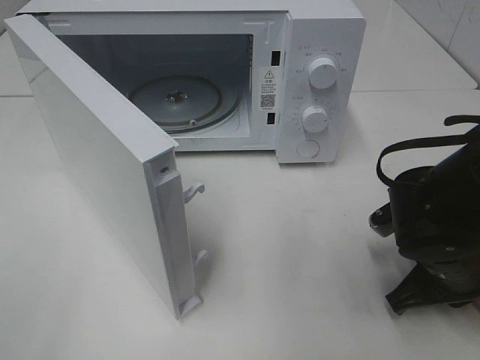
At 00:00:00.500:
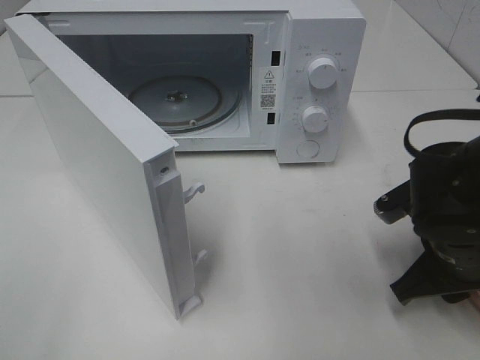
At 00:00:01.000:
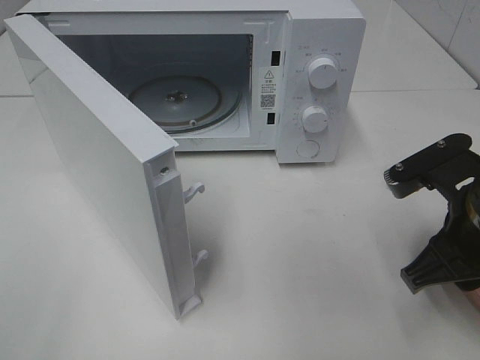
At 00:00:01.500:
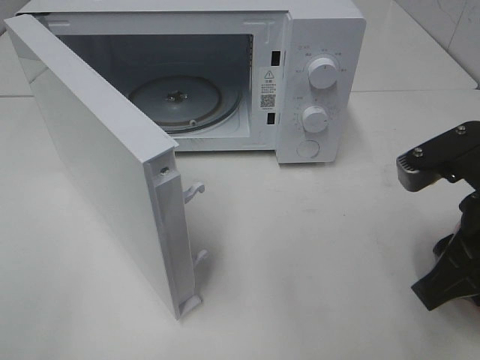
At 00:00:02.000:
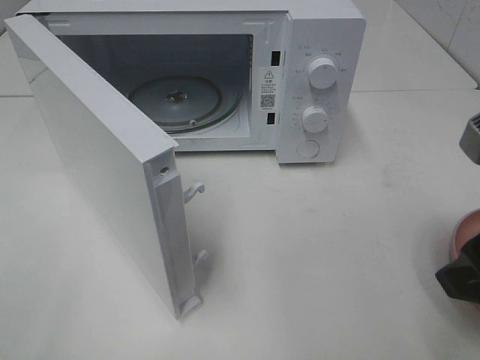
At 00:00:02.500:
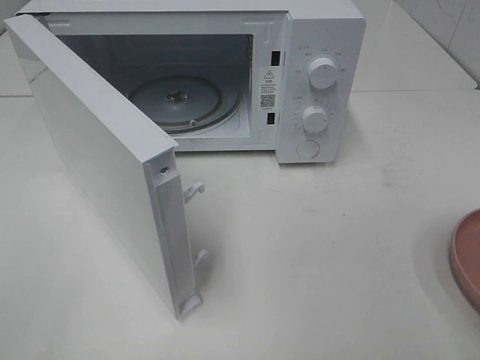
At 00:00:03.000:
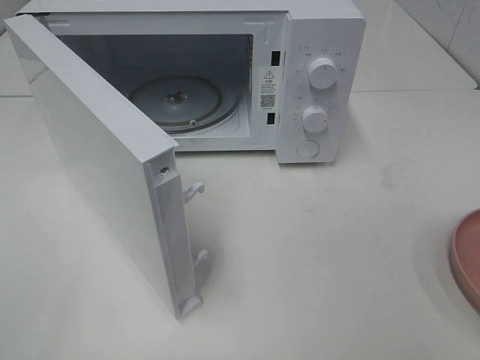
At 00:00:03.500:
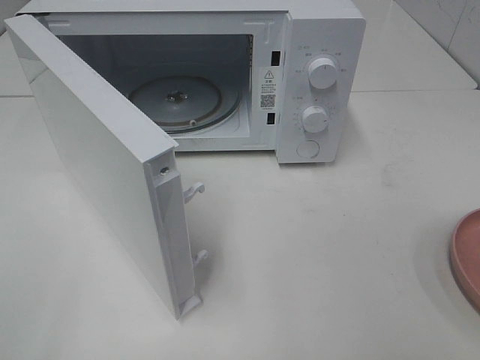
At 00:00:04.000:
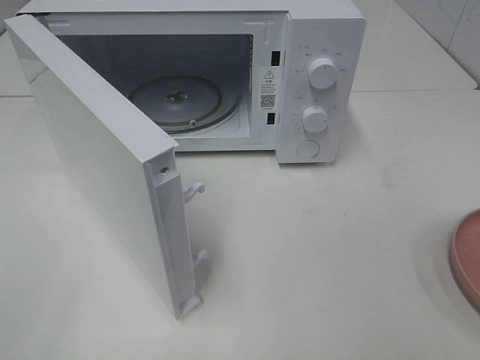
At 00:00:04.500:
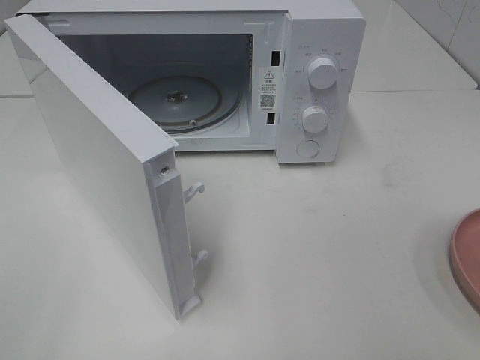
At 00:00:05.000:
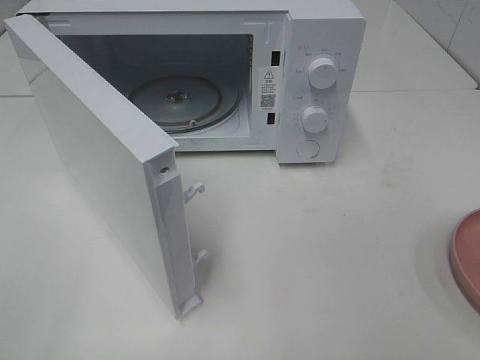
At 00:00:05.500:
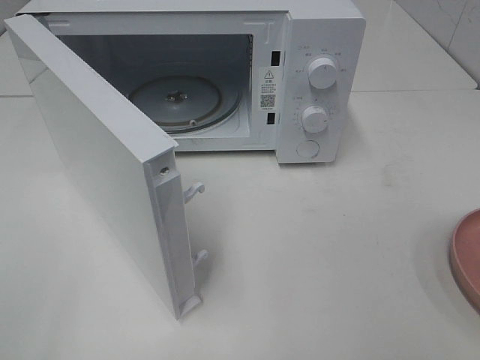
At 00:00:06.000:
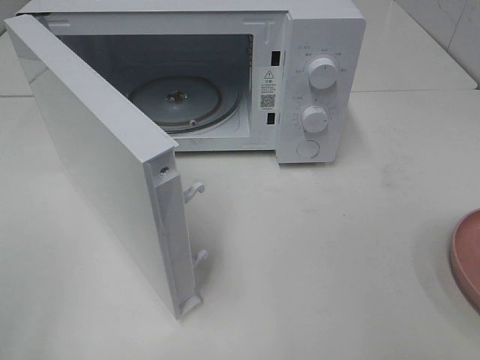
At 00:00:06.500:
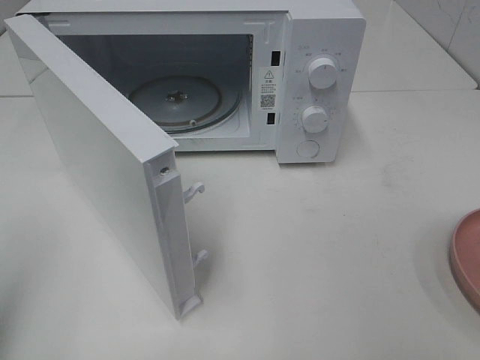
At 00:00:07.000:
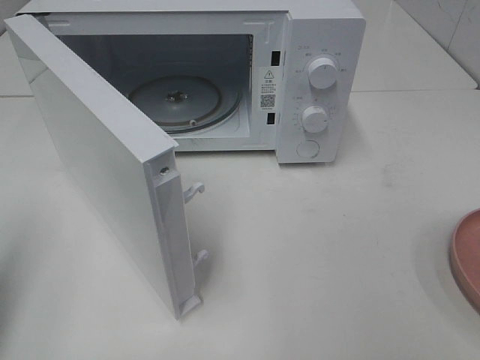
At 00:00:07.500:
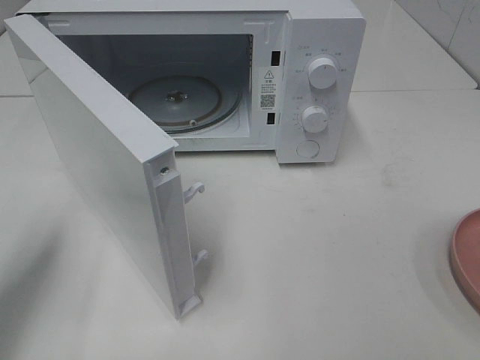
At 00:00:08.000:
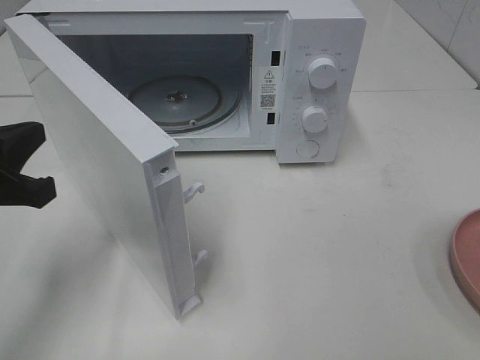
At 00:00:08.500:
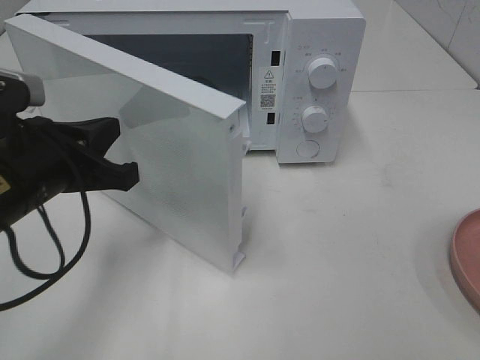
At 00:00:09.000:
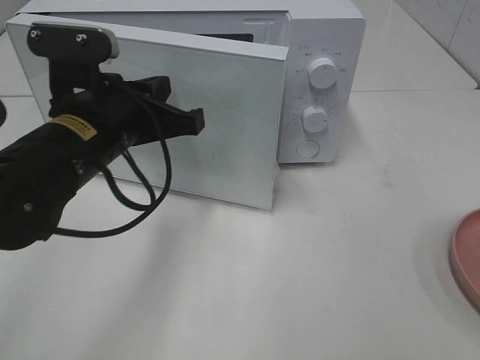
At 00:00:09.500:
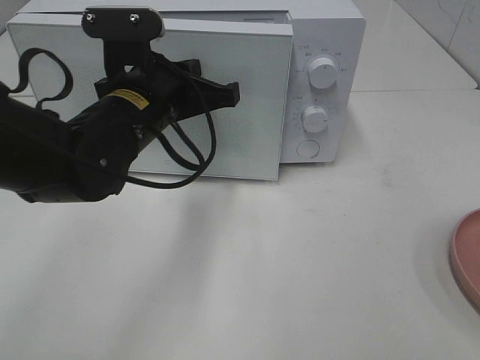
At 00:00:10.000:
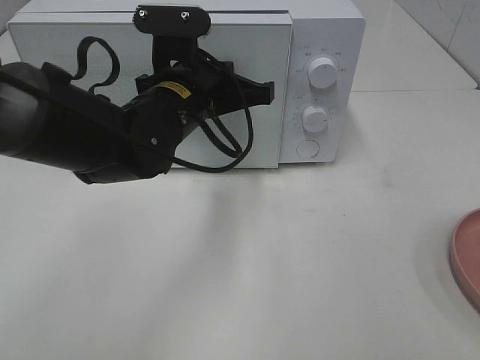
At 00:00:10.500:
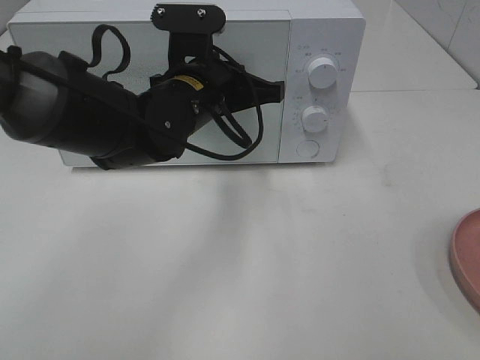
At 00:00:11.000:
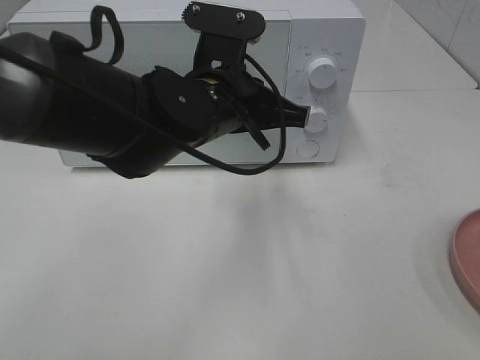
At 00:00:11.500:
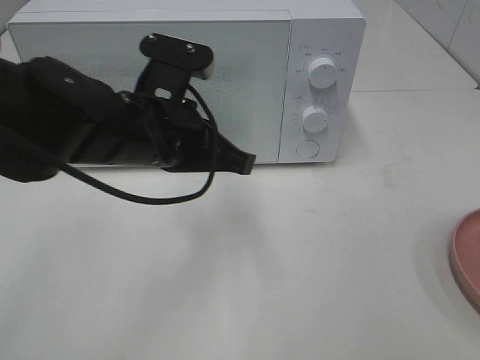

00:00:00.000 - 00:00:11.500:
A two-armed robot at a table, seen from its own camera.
Task of the whole recording: Heat the burger.
Step, 00:00:00.500 - 00:00:10.500: Left hand: close the microwave door.
00:00:00.000 - 00:00:02.000: The right gripper moves upward and backward, about 20 cm, and opens its fingers.
00:00:02.000 - 00:00:04.000: The right gripper is displaced backward and to the right by about 15 cm.
00:00:06.000 - 00:00:07.500: The left gripper is displaced forward and downward by roughly 15 cm, and closes up.
00:00:07.500 - 00:00:09.500: The left gripper goes some 25 cm to the right and forward.

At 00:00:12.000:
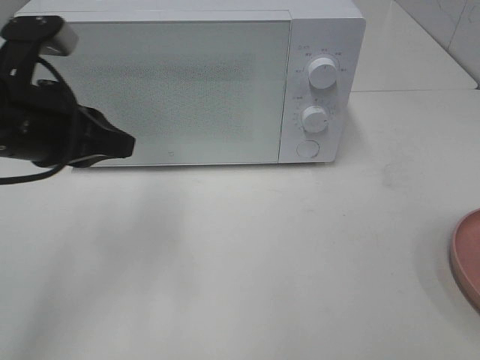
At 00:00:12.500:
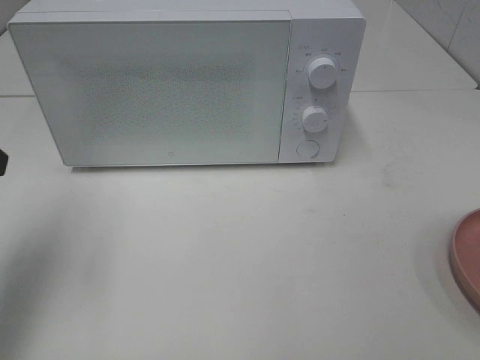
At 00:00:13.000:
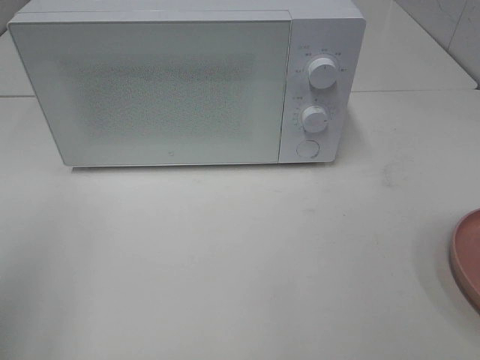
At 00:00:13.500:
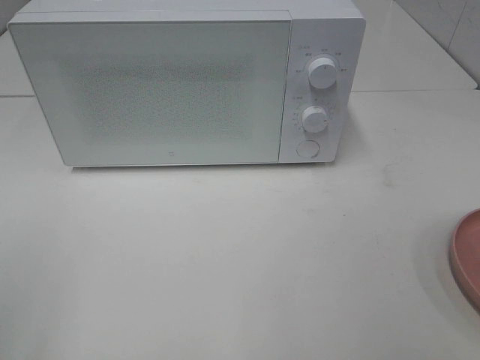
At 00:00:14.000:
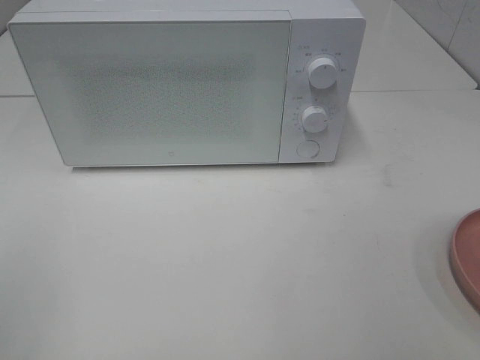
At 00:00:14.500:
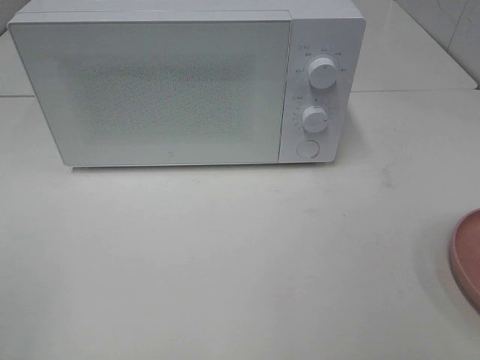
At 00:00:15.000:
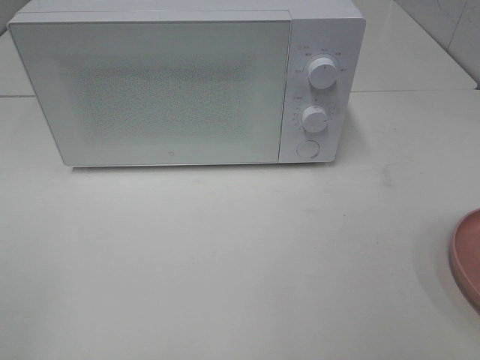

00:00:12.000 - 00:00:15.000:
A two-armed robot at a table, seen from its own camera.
Task of the whole recording: Heat the burger.
00:00:12.000 - 00:00:13.500: The left gripper shifts approximately 25 cm backward and to the left, and opens its fingers.

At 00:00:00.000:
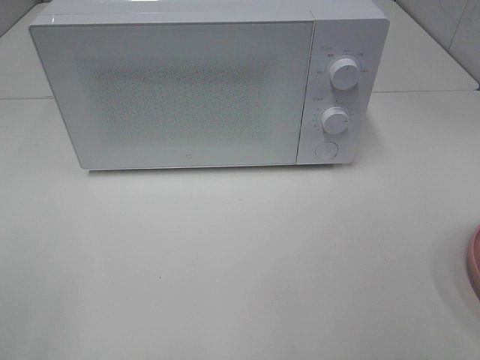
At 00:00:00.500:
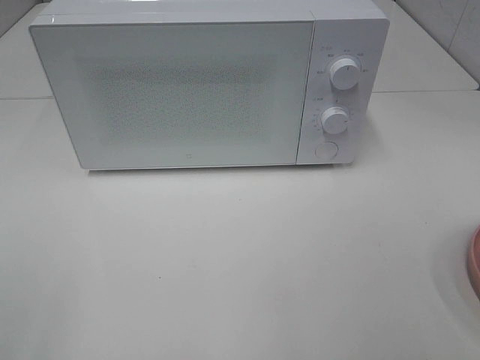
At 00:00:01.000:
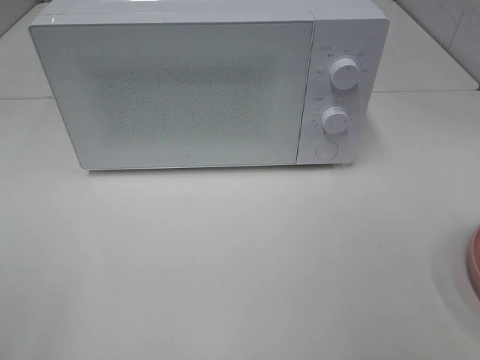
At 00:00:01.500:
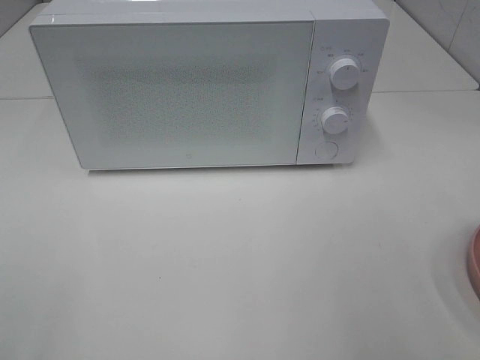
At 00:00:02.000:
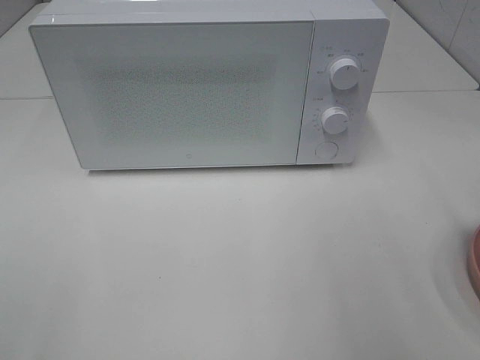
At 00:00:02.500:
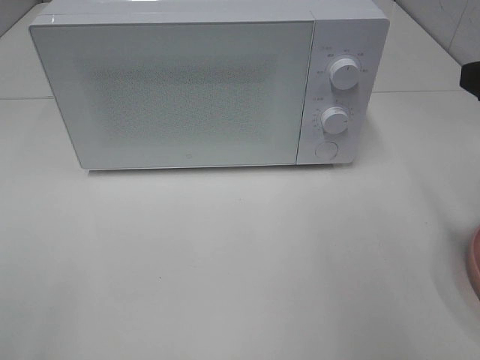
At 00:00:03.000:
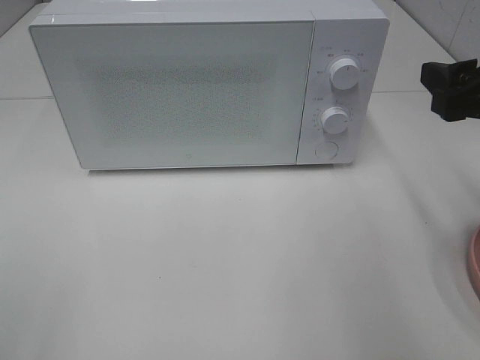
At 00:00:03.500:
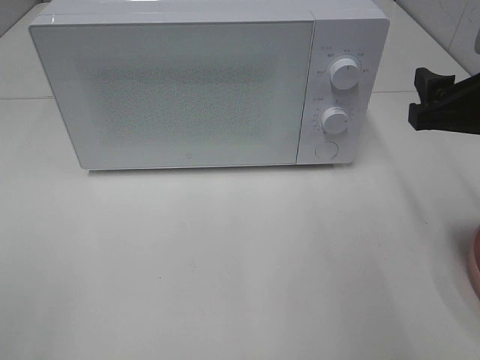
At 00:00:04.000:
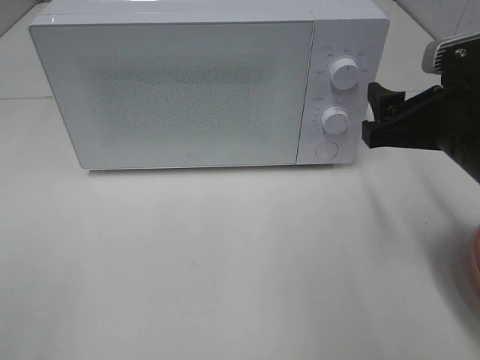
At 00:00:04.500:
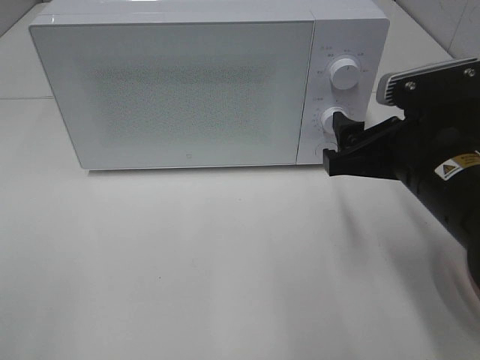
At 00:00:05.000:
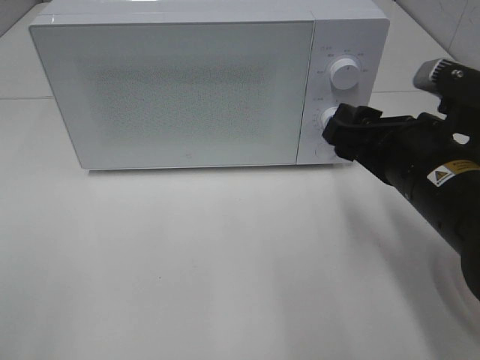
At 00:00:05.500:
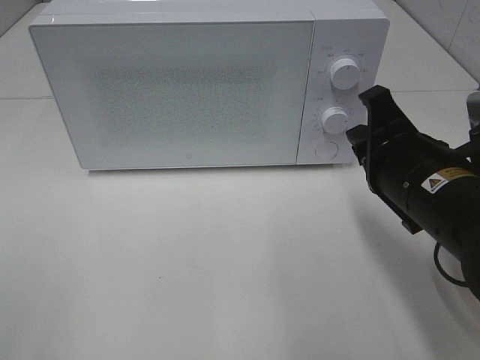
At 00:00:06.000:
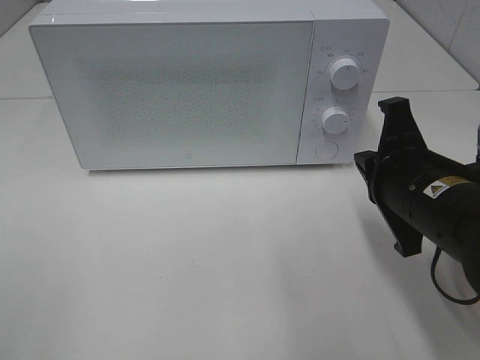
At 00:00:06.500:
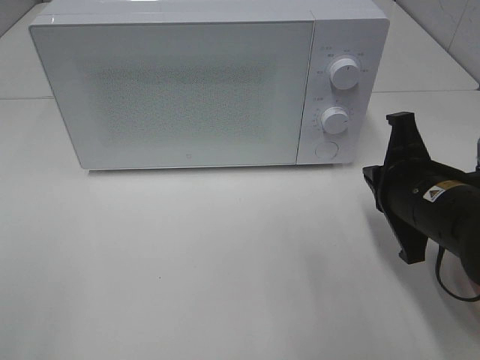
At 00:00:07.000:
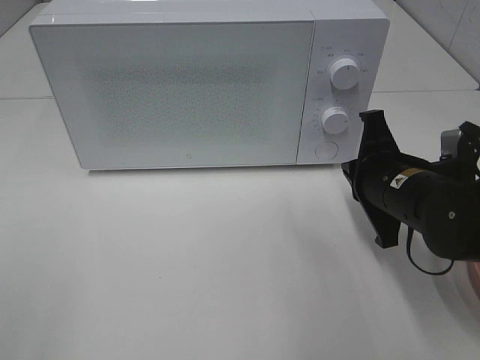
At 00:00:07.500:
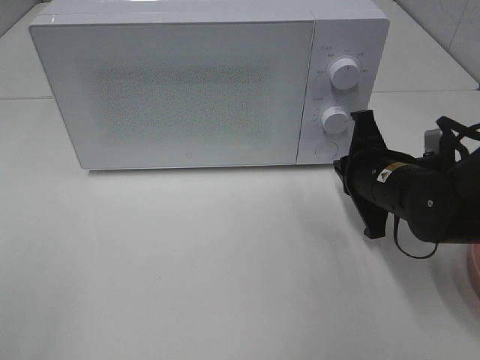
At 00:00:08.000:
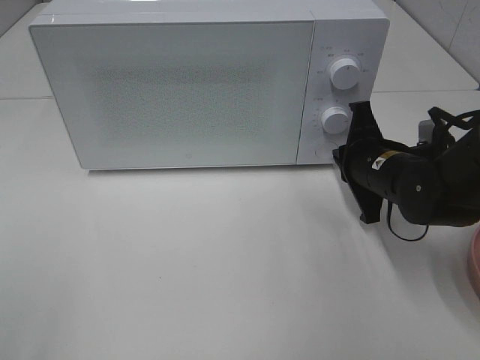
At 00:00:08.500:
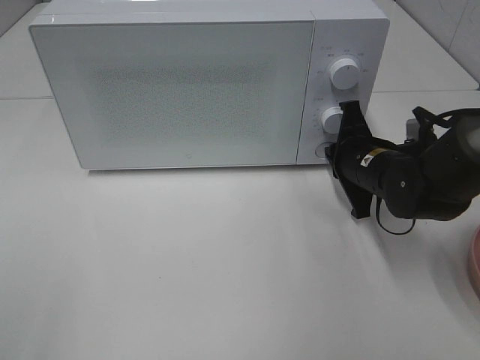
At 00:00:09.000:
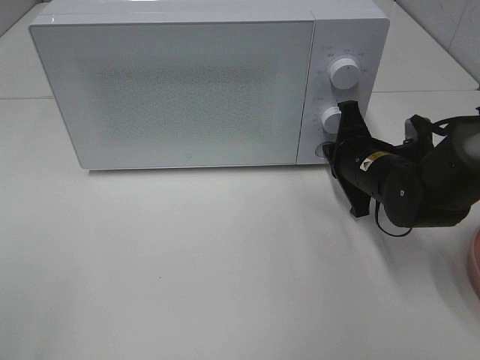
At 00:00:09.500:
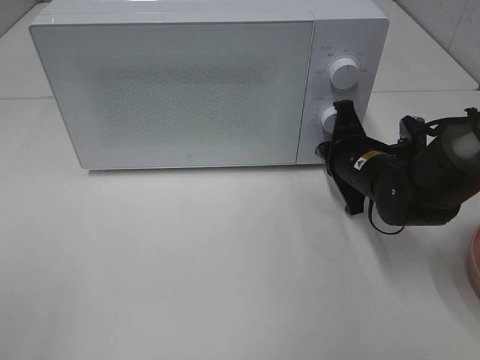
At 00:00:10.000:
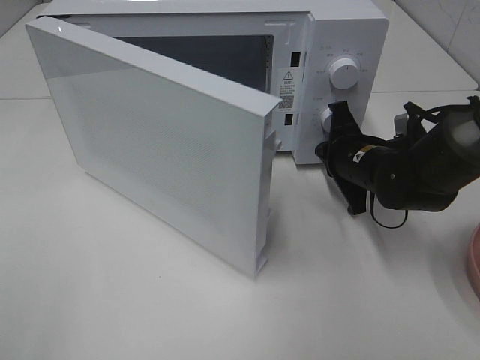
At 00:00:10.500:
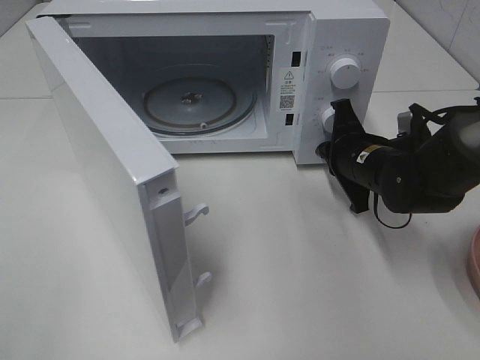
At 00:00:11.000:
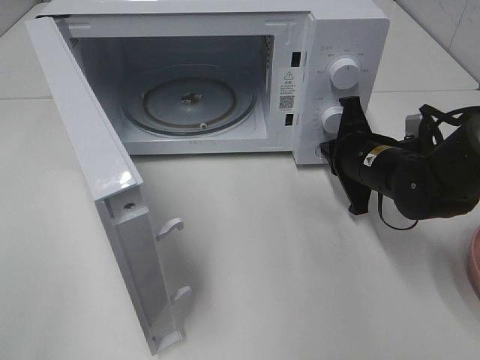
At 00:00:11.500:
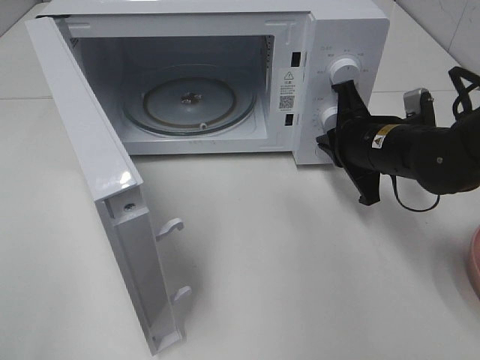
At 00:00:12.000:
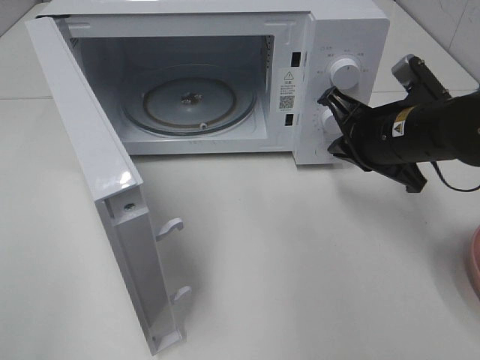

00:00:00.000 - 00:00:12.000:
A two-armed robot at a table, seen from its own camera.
Task of the whole recording: Heat the burger.
Step, 00:00:00.000 - 00:00:11.000: Right hand: press the switch.
00:00:02.000 - 00:00:04.000: The right gripper travels downward, forward and to the left by approximately 15 cm.
00:00:04.000 - 00:00:06.000: The right gripper shifts by about 5 cm, and closes.
00:00:06.000 - 00:00:08.000: The right gripper goes some 15 cm forward and downward.
00:00:10.000 - 00:00:12.000: The right gripper goes some 10 cm upward and backward.
